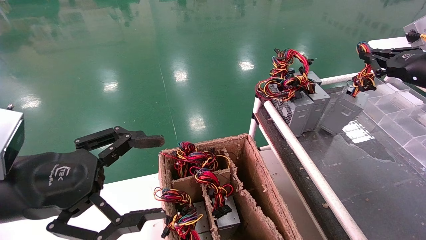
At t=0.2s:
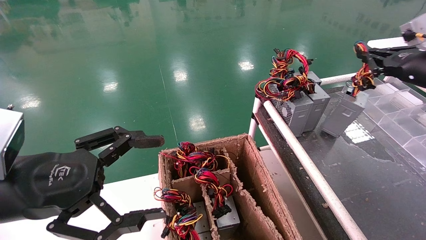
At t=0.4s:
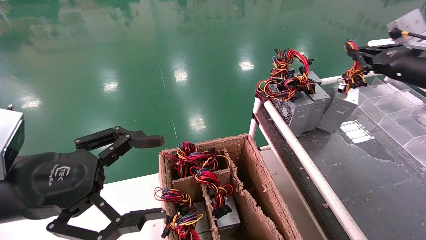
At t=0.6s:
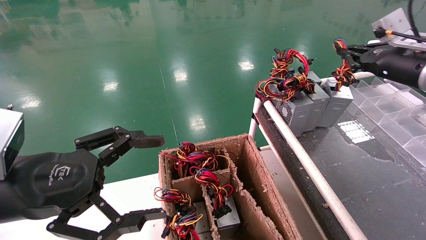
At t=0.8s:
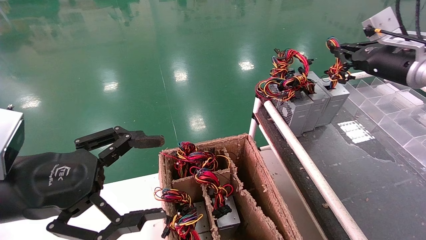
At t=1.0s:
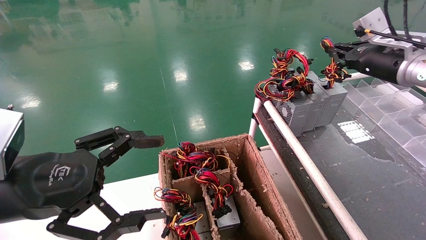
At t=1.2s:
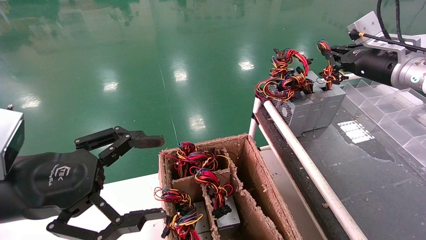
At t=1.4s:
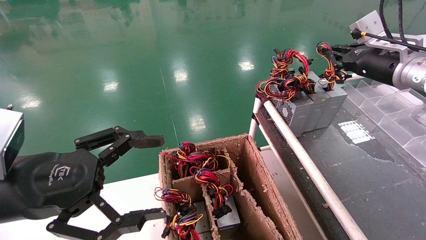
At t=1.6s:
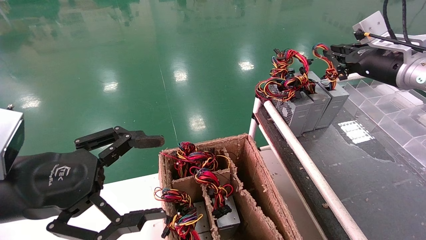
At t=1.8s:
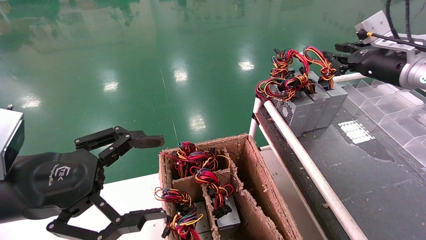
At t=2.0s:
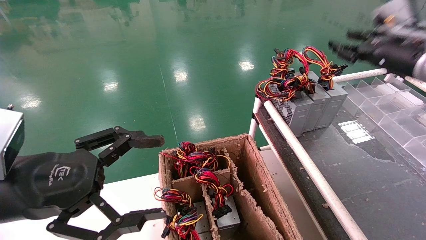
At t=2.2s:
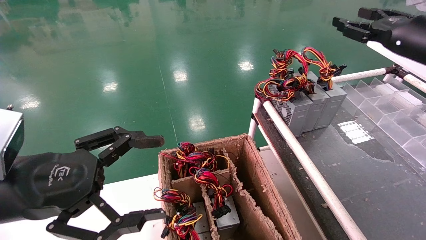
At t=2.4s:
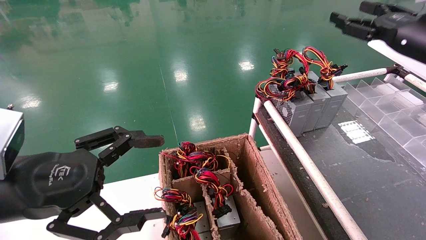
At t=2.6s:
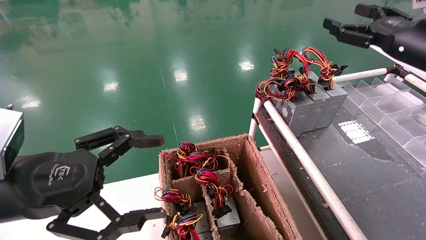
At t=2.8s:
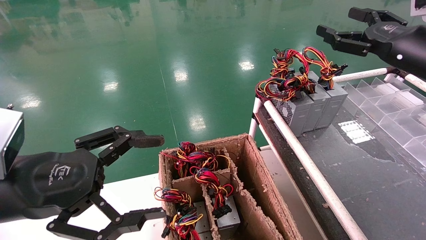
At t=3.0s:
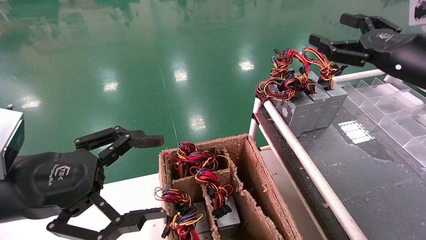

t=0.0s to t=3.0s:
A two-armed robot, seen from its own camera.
t=0.0s to t=1.6s: The right gripper goes about 5 cm to the left.
t=1.6s to t=3.0s: The right gripper travels backward by some 10 cm, and opens up.
